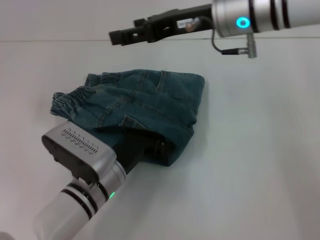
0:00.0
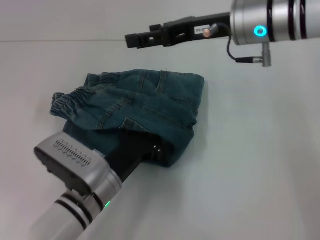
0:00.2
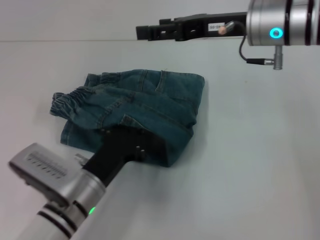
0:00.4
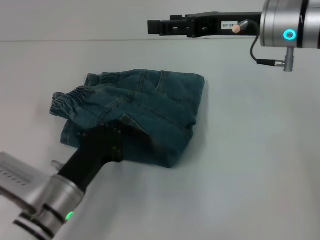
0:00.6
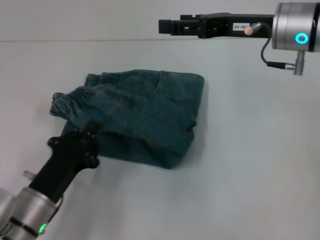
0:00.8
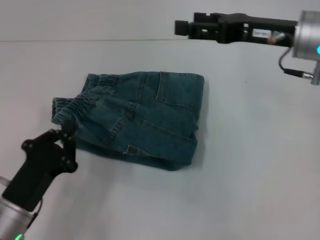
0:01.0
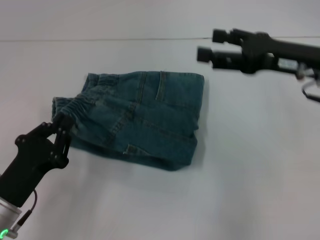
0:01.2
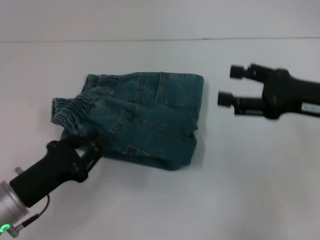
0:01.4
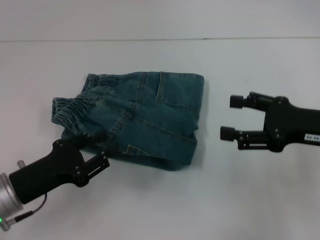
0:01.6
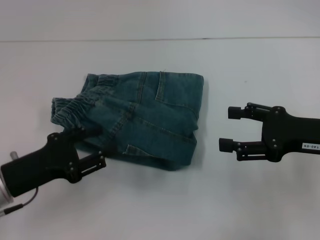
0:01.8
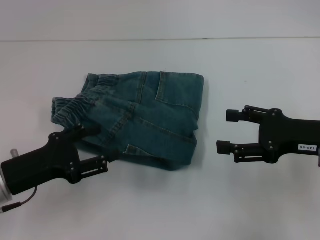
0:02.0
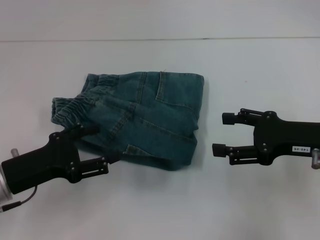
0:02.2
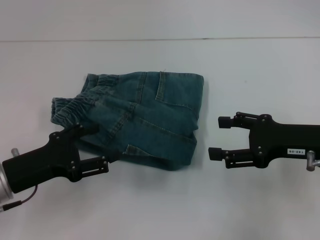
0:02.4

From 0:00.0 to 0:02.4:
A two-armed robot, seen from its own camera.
From 0:00.0 to 0:01.2: The right gripper moves to the right and backward, about 15 cm. The left gripper heads to the left and backward, covering about 15 cm.
From 0:01.2 to 0:02.4: The left gripper shifts by roughly 5 cm, and opens up. The right gripper is displaced downward and backward by approximately 10 cm.

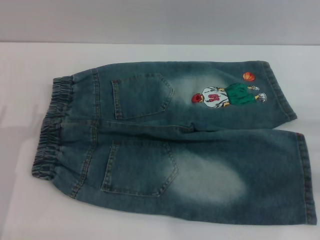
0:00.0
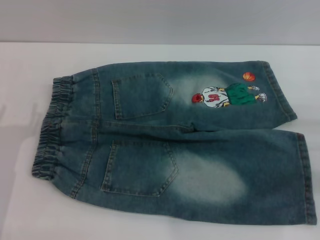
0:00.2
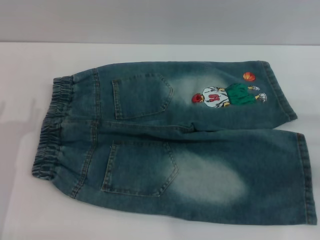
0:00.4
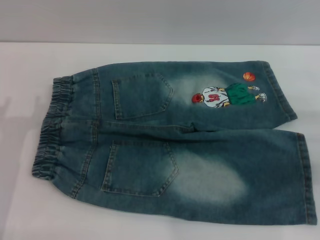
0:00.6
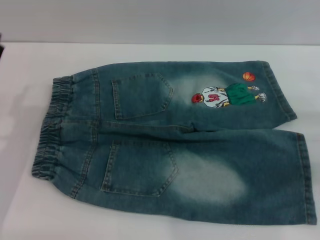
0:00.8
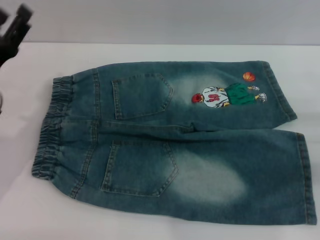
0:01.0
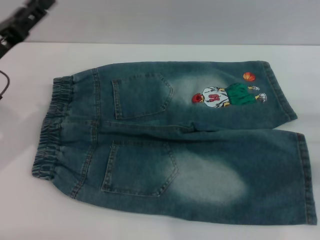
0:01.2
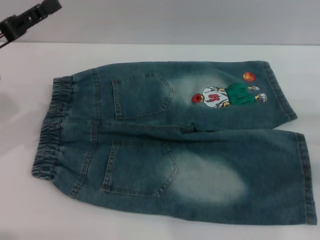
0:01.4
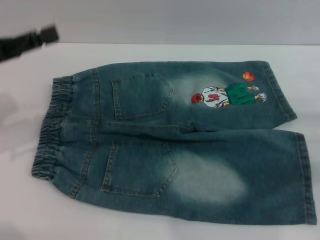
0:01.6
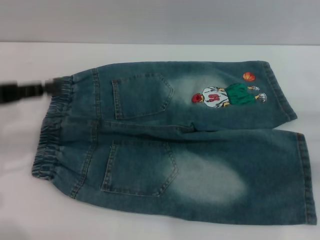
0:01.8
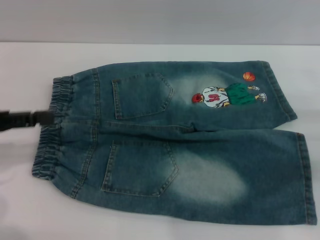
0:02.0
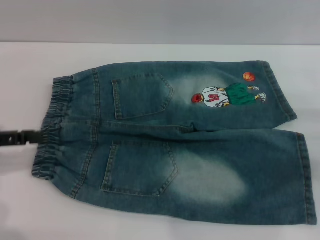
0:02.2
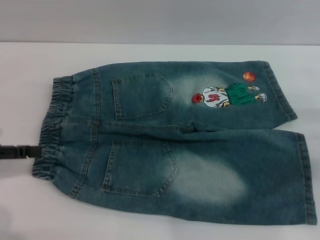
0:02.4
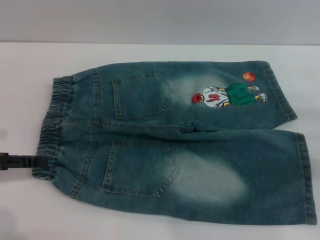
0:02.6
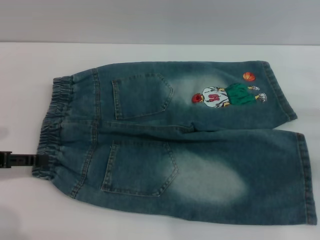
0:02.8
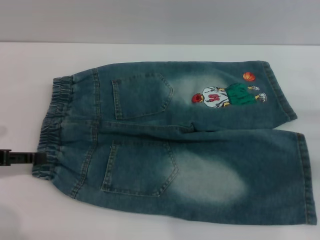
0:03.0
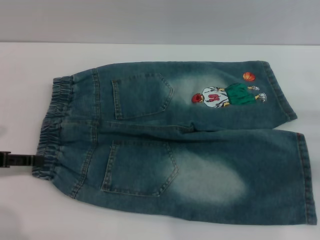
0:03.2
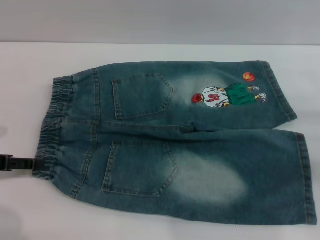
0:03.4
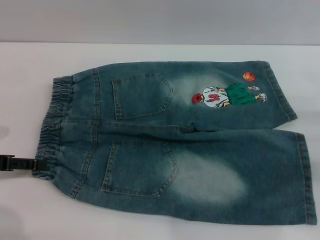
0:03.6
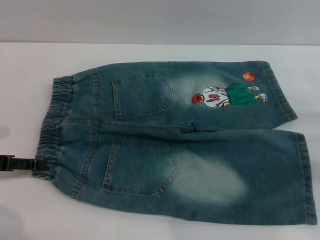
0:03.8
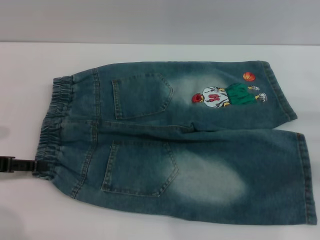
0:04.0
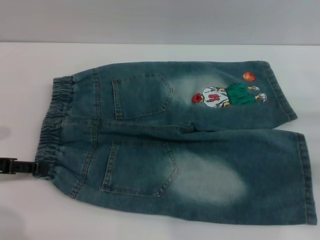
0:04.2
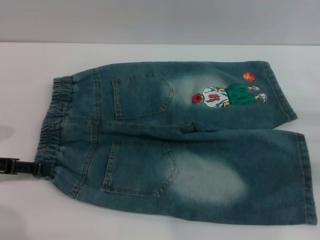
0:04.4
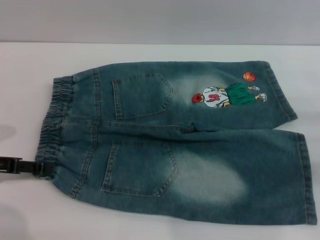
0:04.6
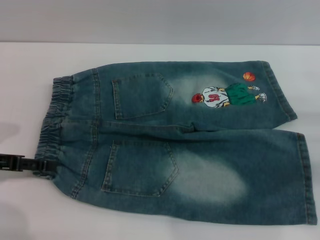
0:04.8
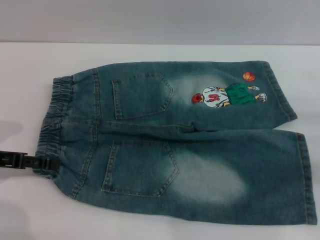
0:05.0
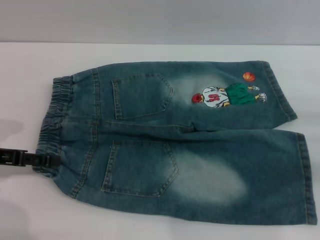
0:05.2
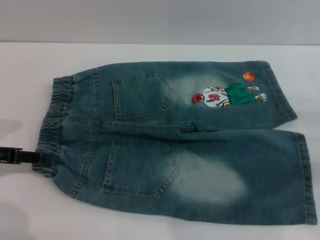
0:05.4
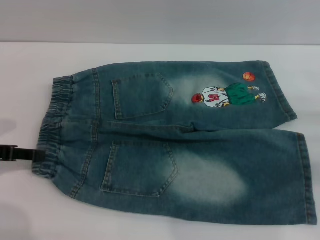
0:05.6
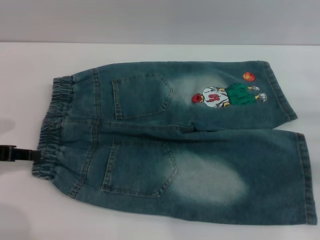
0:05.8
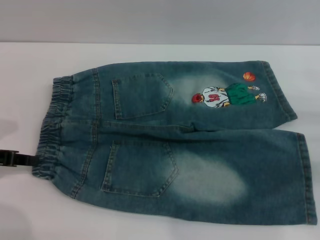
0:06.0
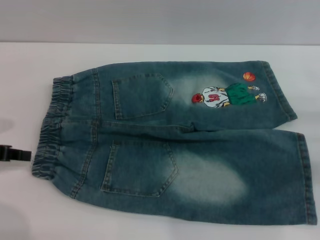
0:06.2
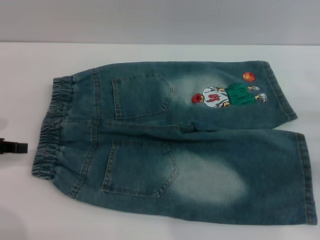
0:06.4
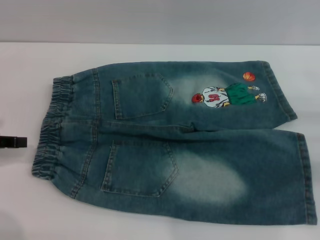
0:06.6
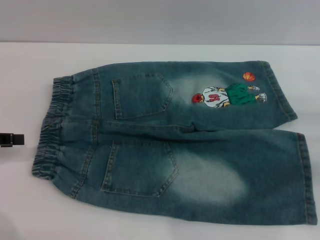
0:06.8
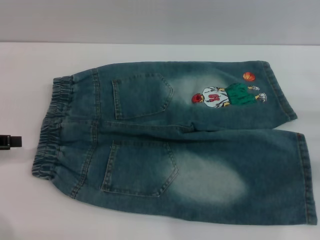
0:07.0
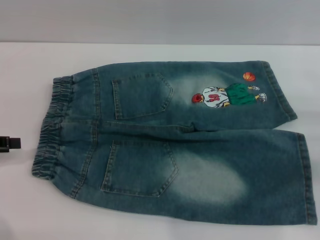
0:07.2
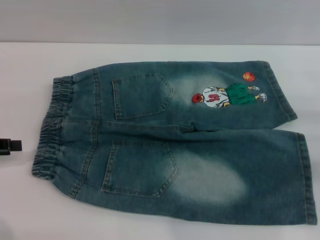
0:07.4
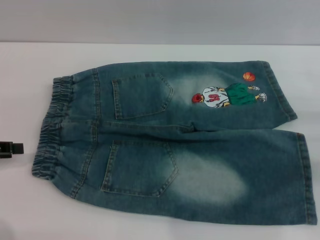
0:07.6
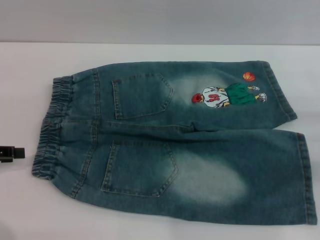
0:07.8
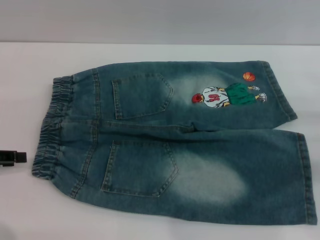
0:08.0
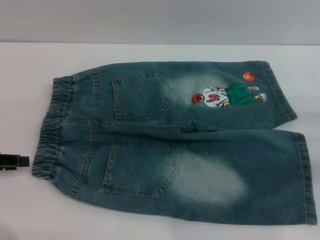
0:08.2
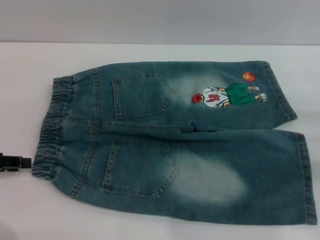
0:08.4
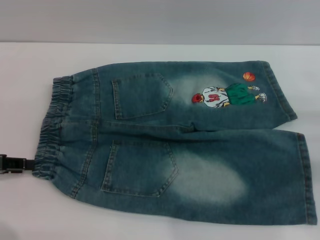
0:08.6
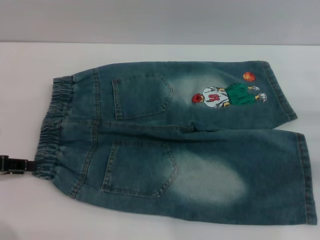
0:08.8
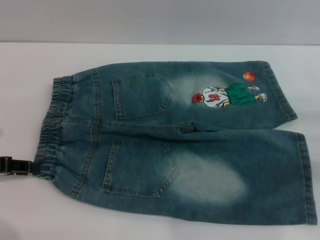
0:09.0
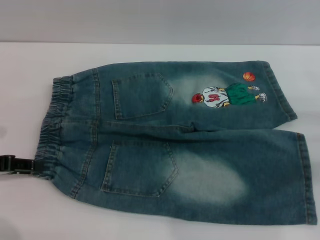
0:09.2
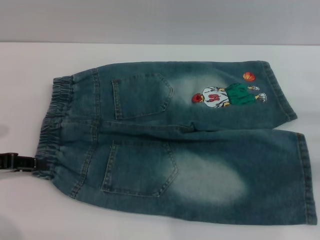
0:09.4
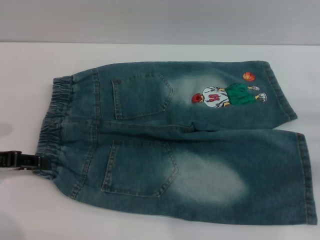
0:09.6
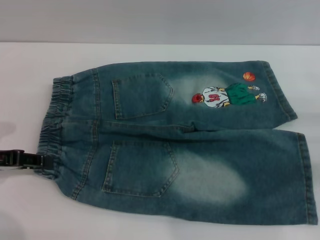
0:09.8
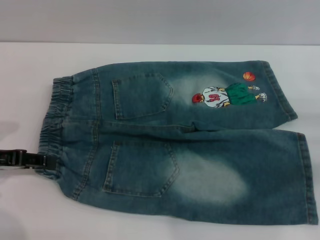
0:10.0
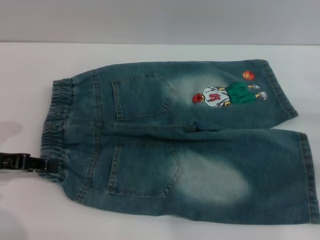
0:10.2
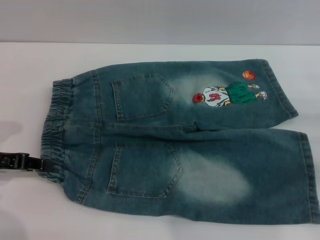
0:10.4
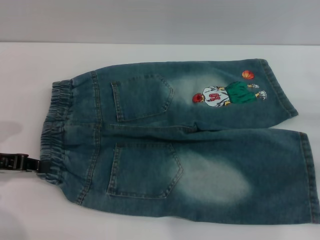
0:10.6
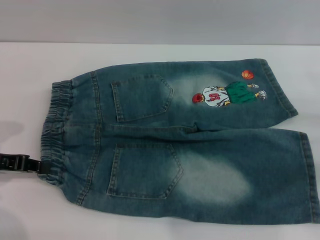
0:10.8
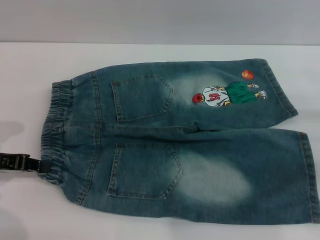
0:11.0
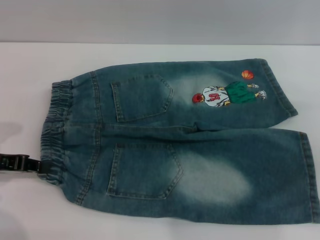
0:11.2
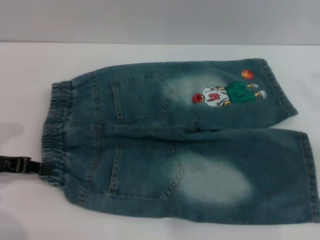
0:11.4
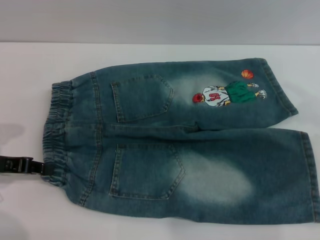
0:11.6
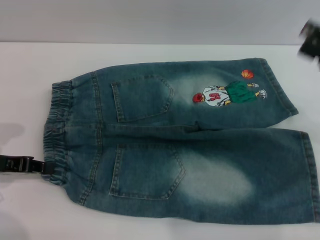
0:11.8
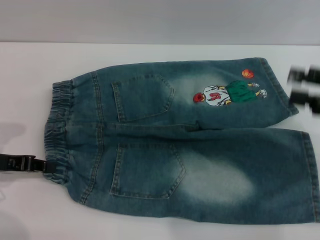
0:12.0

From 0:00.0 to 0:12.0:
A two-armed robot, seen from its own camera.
From 0:00.0 to 0:01.6: The left gripper travels upward and forward by about 15 cm.
From 0:01.6 to 0:03.0: The left gripper is displaced downward by approximately 5 cm.
From 0:03.0 to 0:04.4: The grippers stay close to where they were, moving slightly.
From 0:04.4 to 0:06.0: The left gripper closes up.
From 0:06.0 to 0:07.6: The left gripper closes and opens again.
From 0:07.6 to 0:10.4: The grippers stay close to where they were, moving slightly.
From 0:10.4 to 0:12.0: The right gripper heads upward, covering approximately 10 cm.

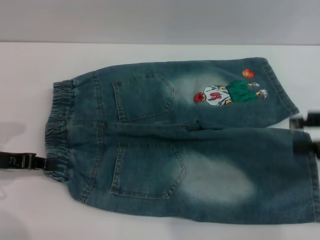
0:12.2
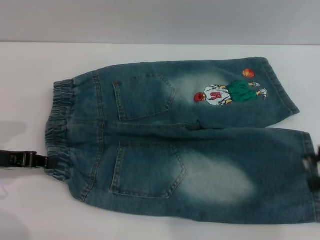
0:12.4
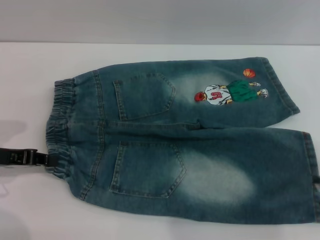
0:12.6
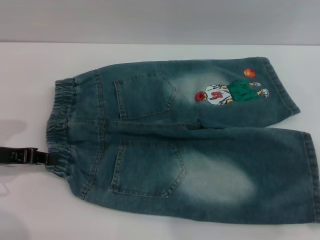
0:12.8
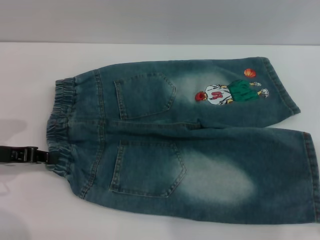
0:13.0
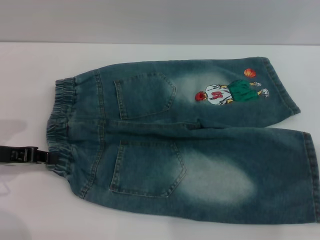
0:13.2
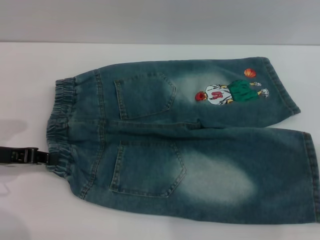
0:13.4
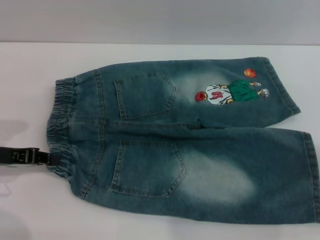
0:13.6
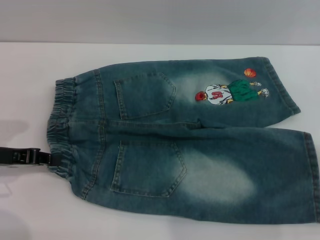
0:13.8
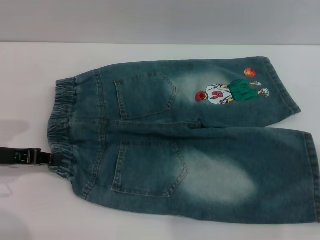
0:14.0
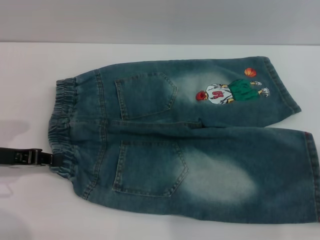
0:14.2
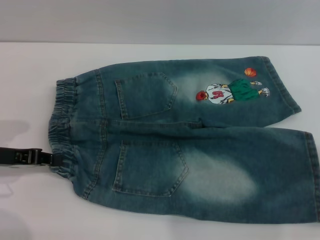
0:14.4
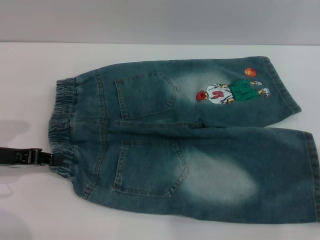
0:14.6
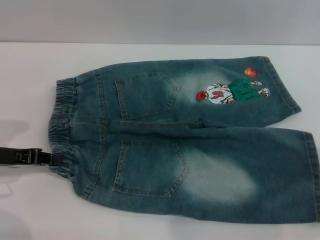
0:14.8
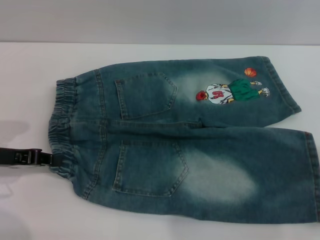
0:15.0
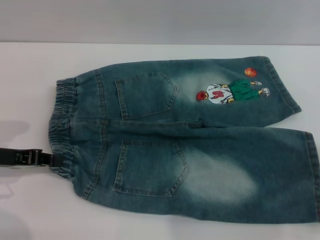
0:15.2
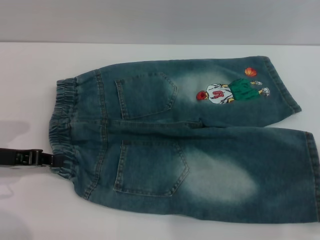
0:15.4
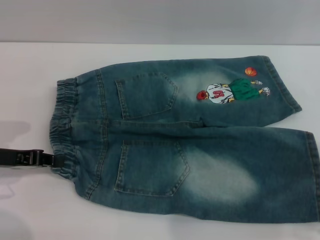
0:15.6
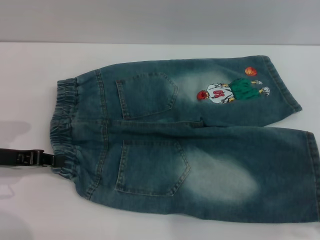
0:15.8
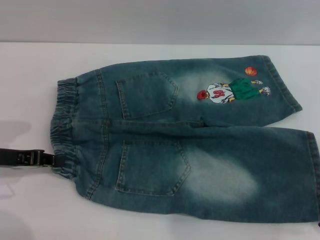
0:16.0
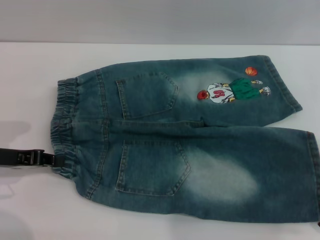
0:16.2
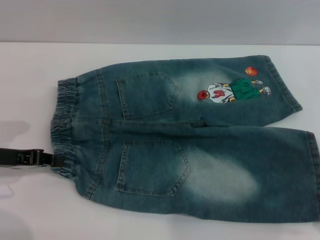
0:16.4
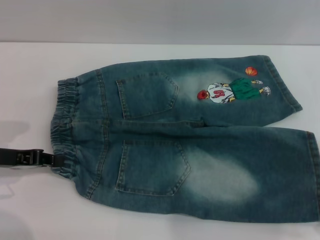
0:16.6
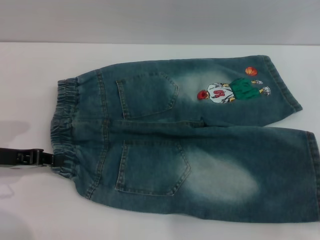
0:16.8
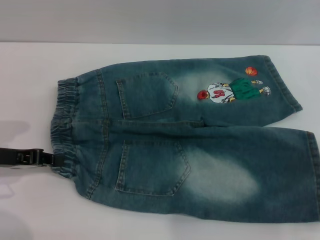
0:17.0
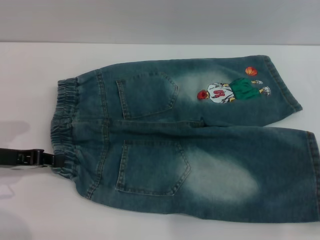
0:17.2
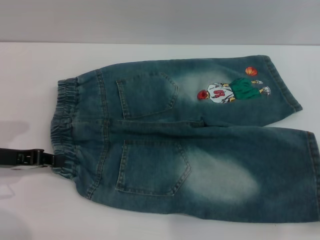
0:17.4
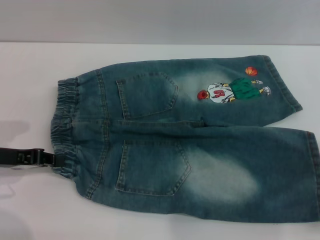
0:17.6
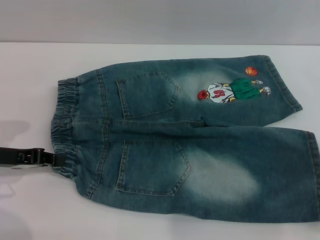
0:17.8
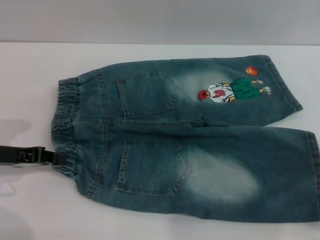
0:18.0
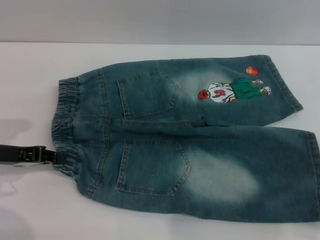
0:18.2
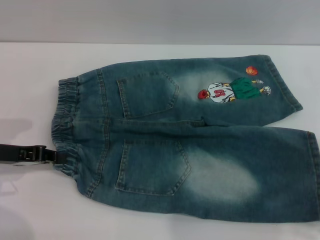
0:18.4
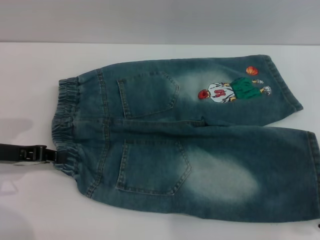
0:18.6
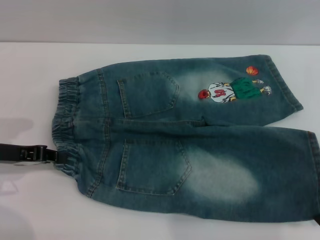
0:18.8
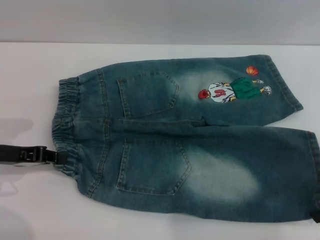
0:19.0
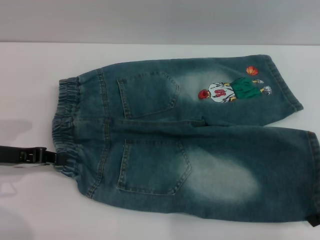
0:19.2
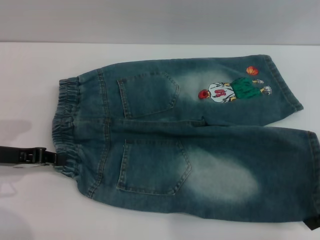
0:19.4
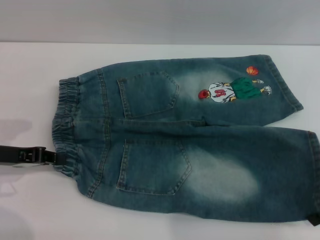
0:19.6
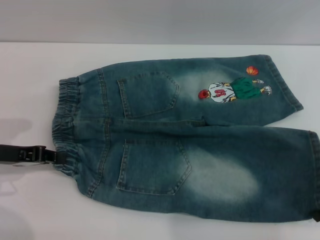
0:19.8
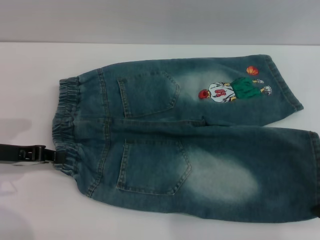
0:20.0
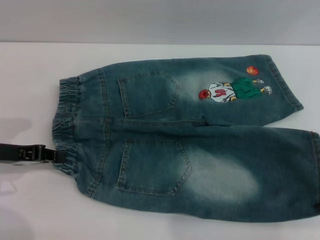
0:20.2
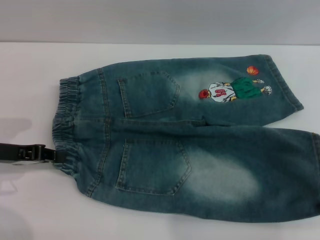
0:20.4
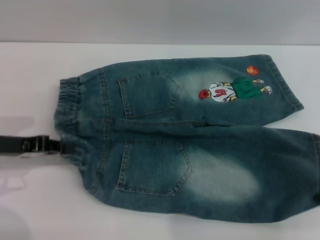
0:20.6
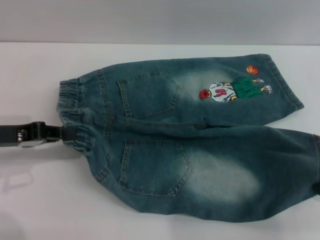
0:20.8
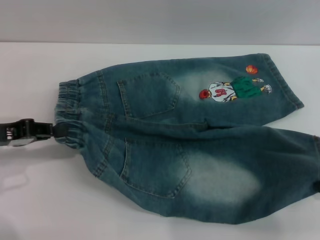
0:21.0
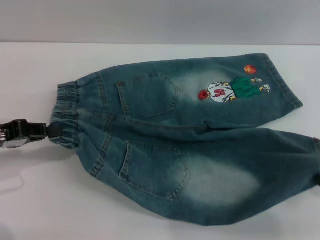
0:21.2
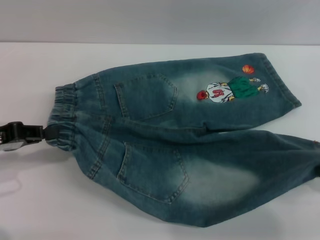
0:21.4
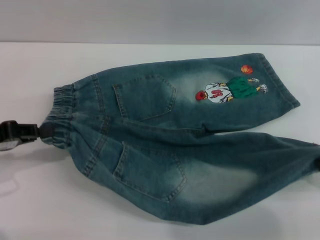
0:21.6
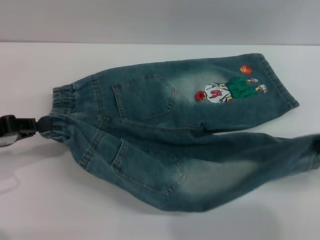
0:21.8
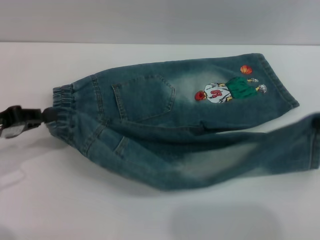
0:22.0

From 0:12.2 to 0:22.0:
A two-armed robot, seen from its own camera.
From 0:12.2 to 0:13.6: The right gripper shifts by approximately 5 cm.
From 0:13.6 to 0:16.4: There are only small adjustments of the grippers.
From 0:17.8 to 0:19.2: The grippers move only a little.
From 0:19.2 to 0:20.6: The right gripper closes.
